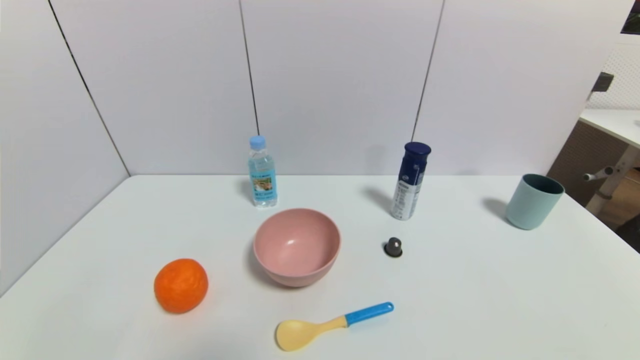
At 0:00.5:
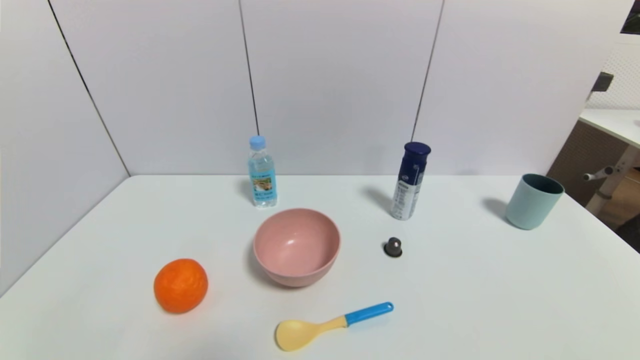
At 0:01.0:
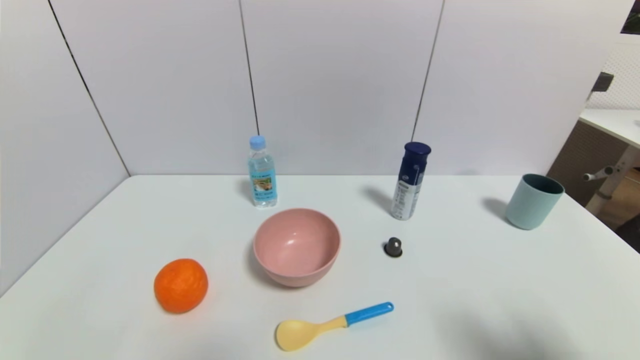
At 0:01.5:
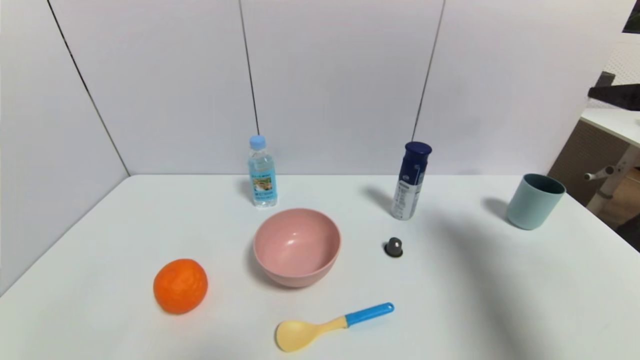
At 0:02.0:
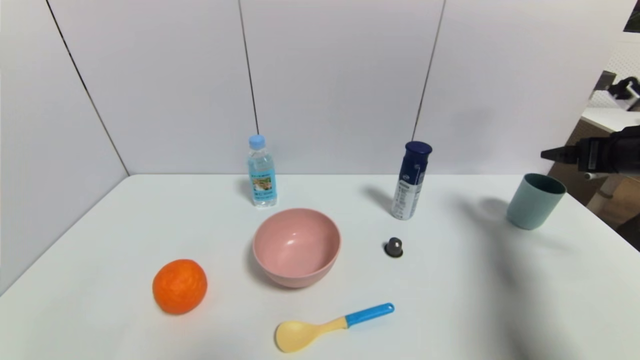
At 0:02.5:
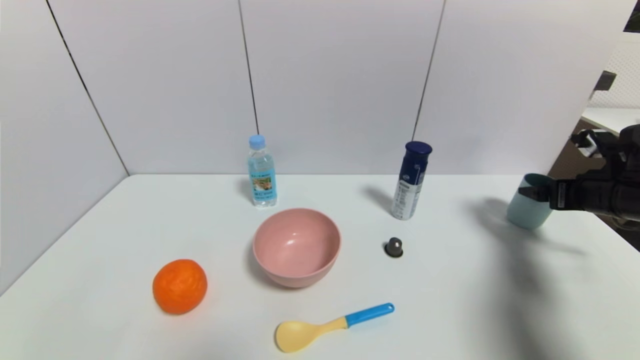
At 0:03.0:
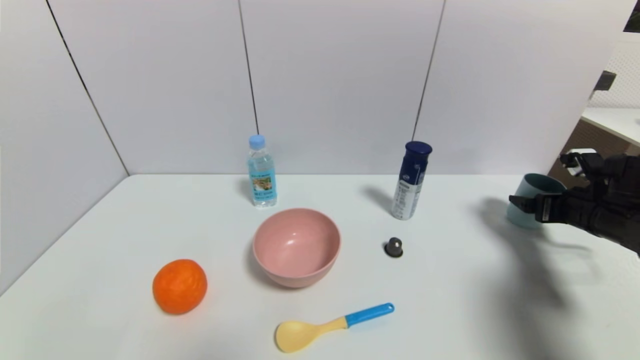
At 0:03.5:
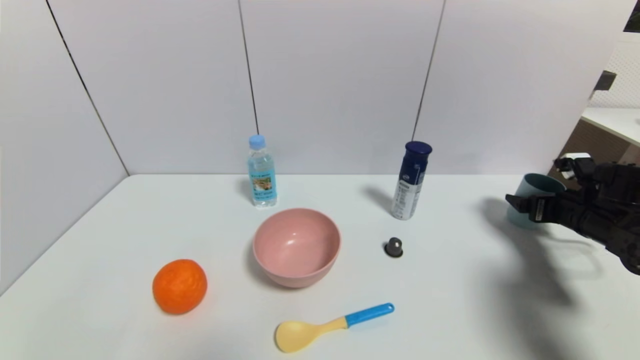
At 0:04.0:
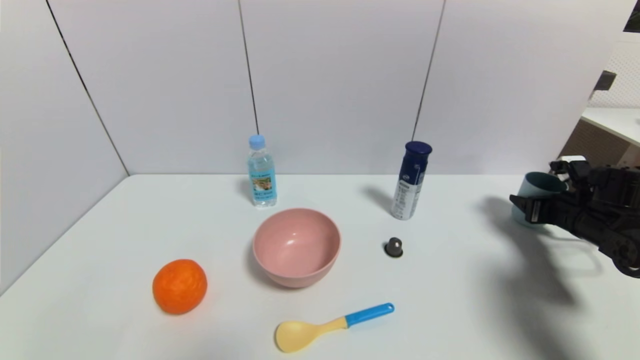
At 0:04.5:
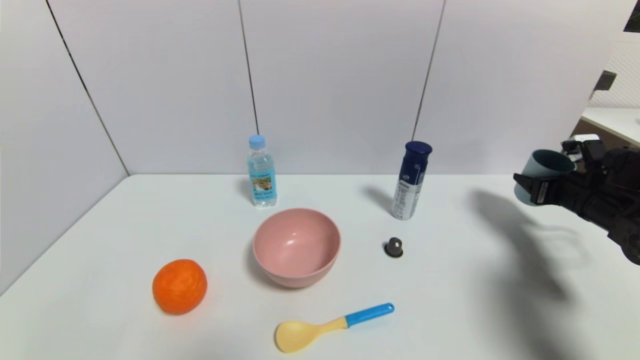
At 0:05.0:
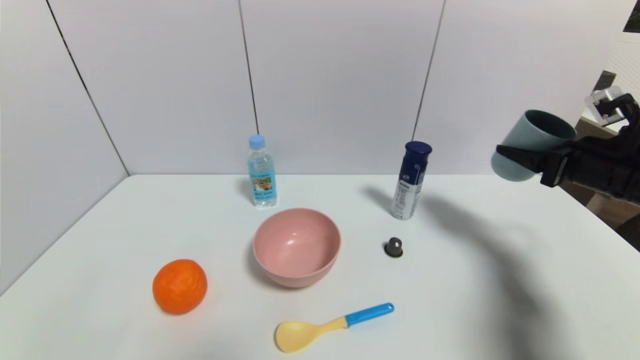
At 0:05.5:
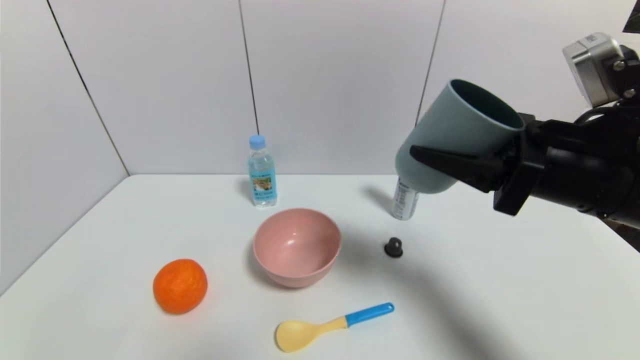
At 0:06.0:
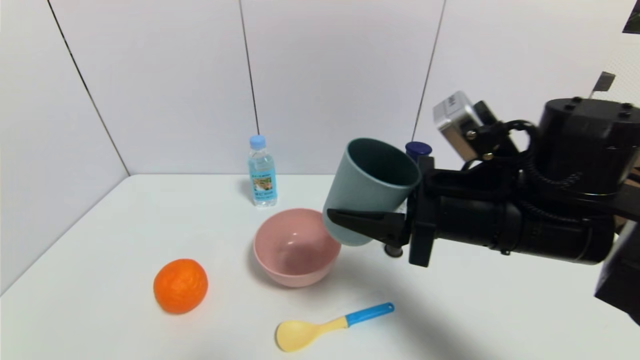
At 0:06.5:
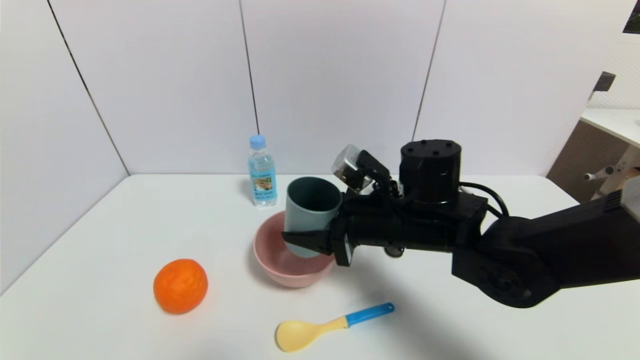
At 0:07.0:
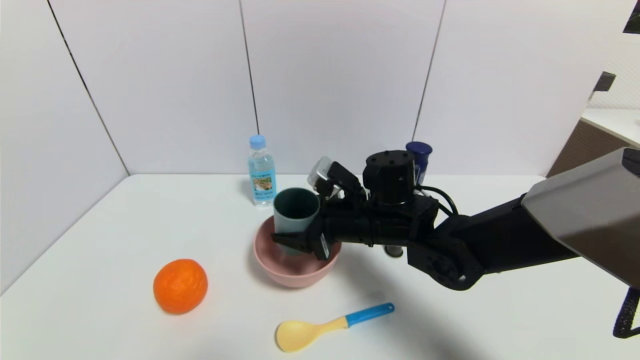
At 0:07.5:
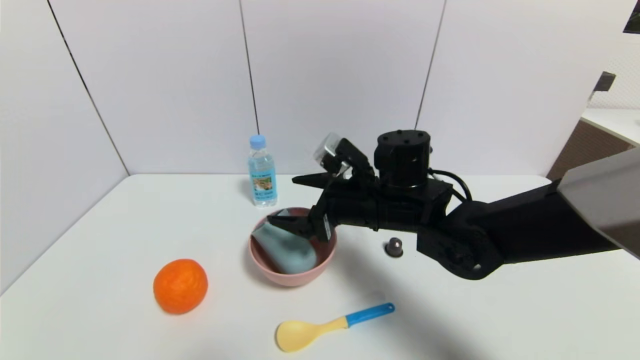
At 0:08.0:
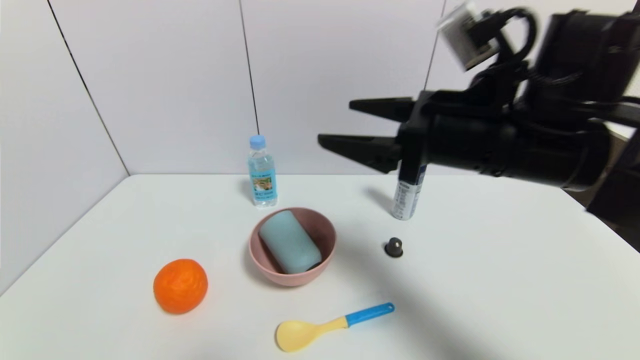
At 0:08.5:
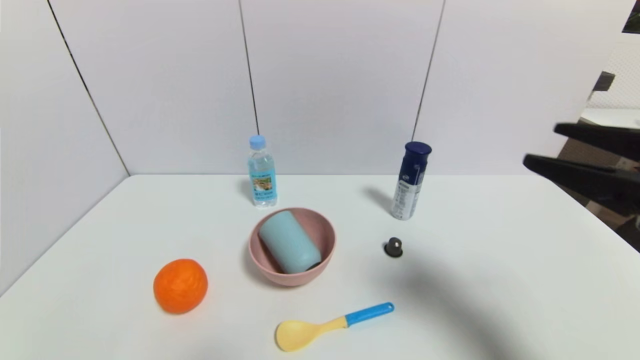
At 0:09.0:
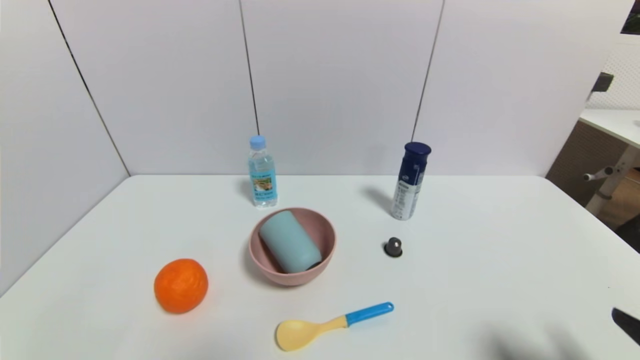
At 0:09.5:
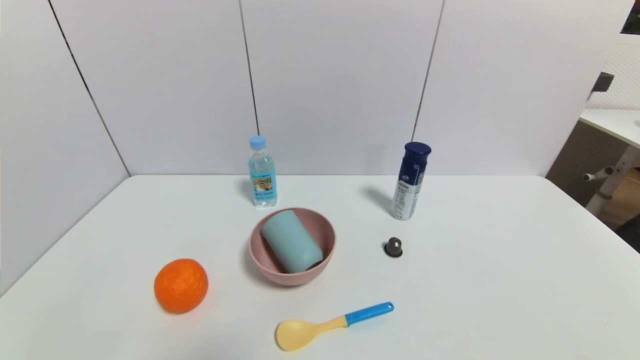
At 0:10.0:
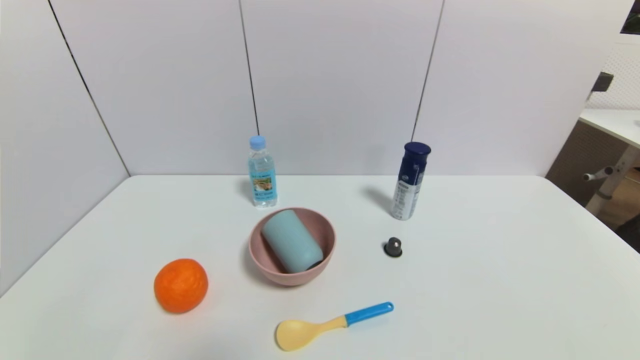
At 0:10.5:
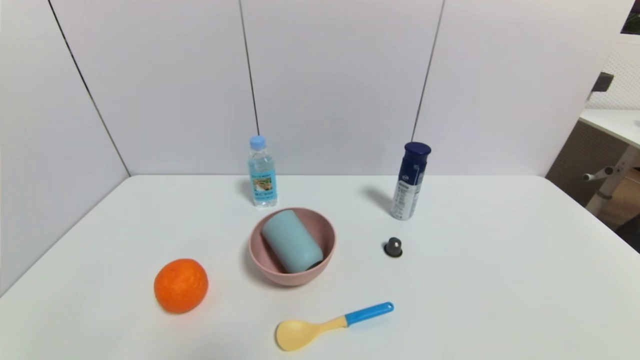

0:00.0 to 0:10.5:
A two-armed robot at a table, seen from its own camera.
Task of the whole recording: use a gripper to pick the target object and place on the pink bowl.
Step, 0:00.0 to 0:03.5: Grasp the blue cup with the right gripper.
Step, 0:04.0 to 0:07.0: Place the blue cup on the pink bowl with the right gripper.
0:00.0 to 0:02.0: The right gripper is displaced forward and upward by approximately 35 cm.
0:02.0 to 0:04.0: The right gripper travels downward by roughly 15 cm, and closes its fingers.
0:04.0 to 0:06.5: The right gripper heads to the left, covering roughly 35 cm.
0:06.5 to 0:08.5: The right gripper is displaced to the right, backward and upward by roughly 30 cm, and opens up.
0:08.5 to 0:10.5: The right gripper travels downward and backward by roughly 25 cm.
